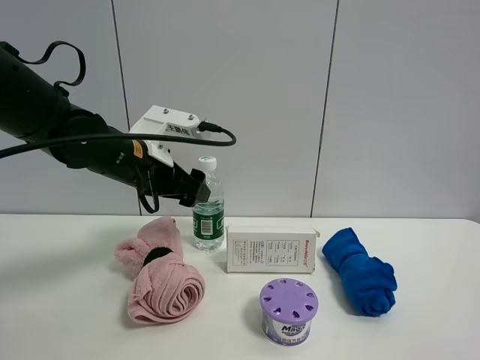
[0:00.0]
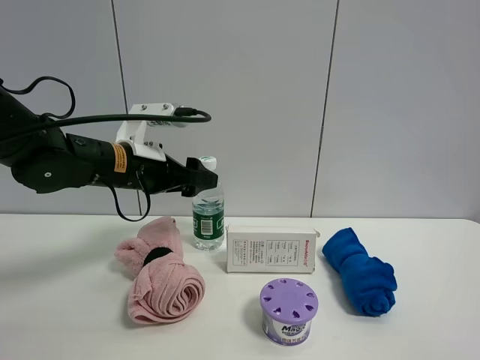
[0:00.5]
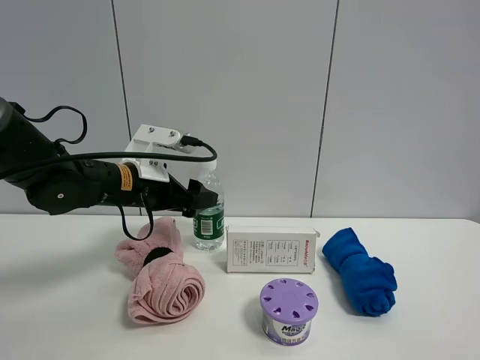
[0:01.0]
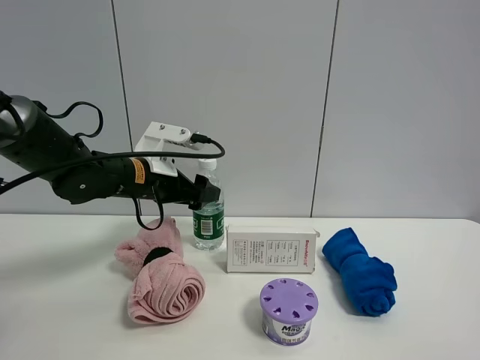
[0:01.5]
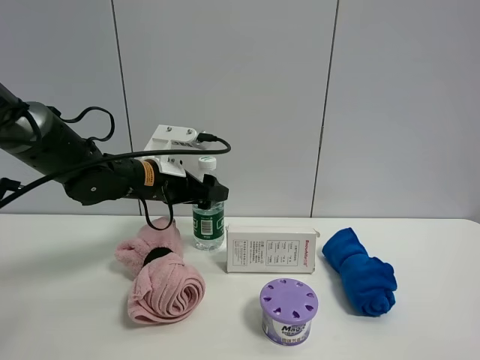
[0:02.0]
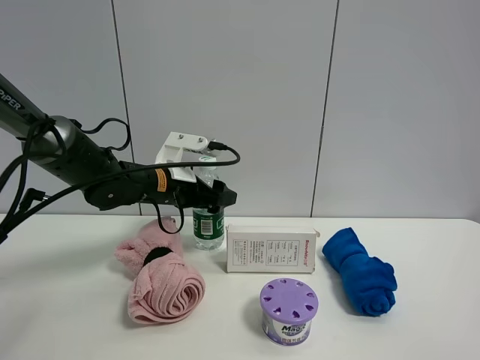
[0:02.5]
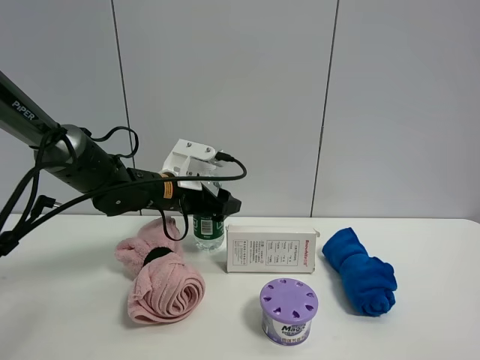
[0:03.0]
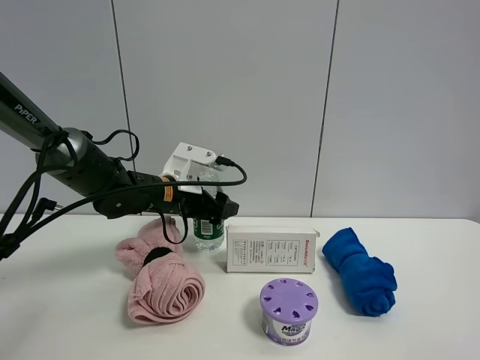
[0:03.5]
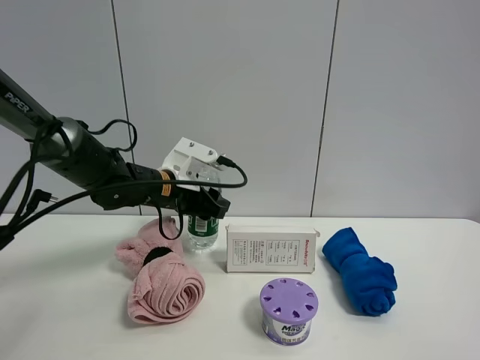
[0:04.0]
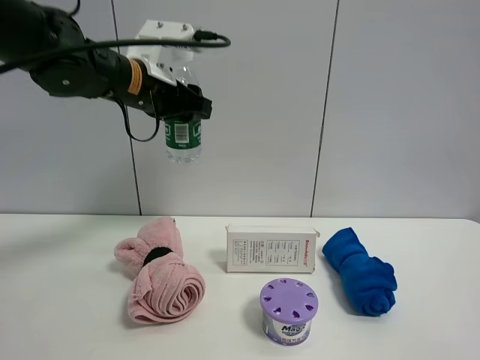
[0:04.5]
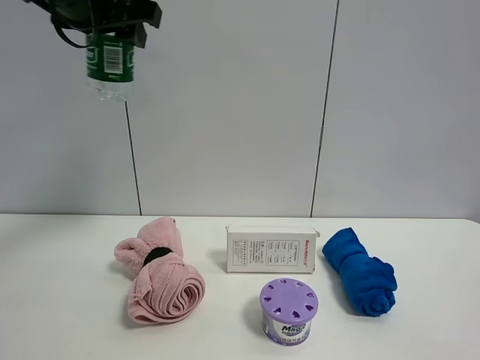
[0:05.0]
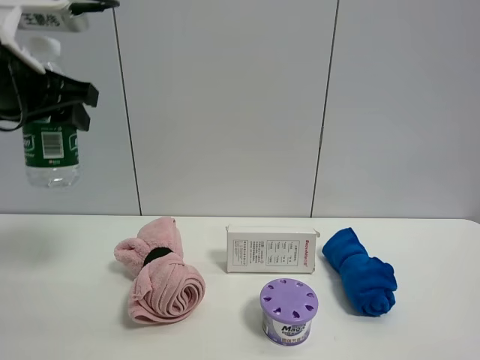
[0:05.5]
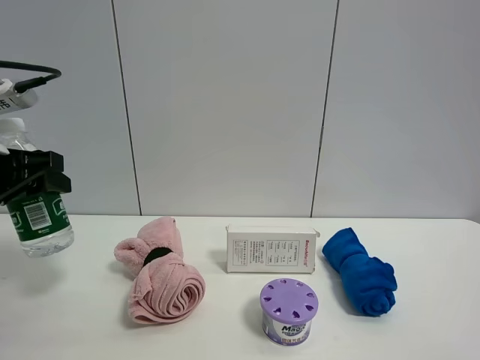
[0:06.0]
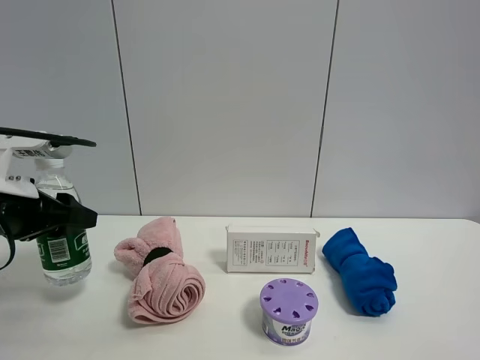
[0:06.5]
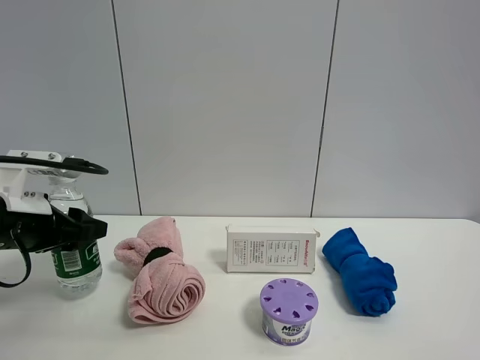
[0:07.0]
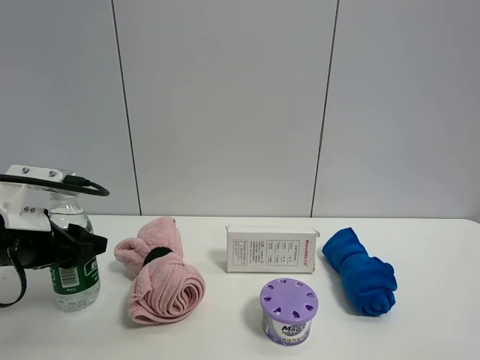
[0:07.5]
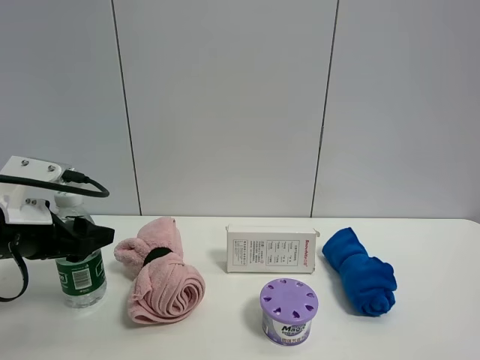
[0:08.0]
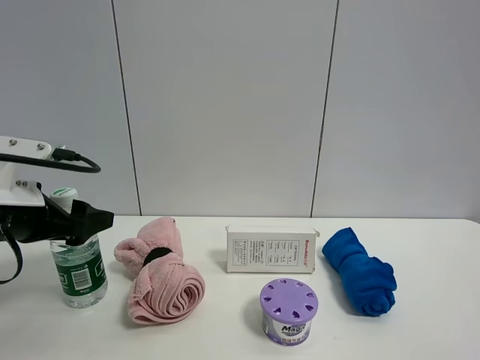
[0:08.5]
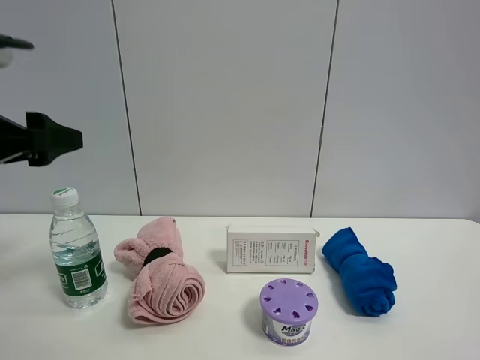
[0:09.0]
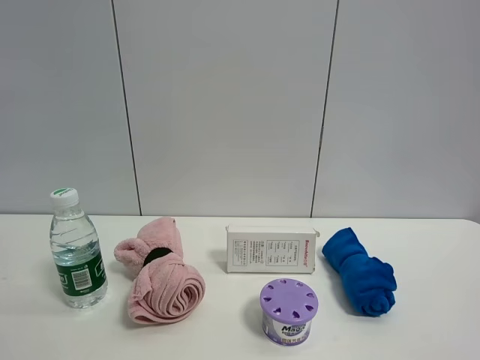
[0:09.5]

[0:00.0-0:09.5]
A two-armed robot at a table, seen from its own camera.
Task of the whole recording: the gripper move the object.
Step, 0:00.0 to 0:03.5: Grasp the YiBao mineral water with the left gripper.
Step, 0:04.0 to 0:08.5: Place the YiBao mineral water on the table with the left gripper.
0:00.0 to 0:02.0: The left gripper changes place by roughly 5 cm.
0:02.0 to 0:04.0: The left gripper closes its fingers.
0:04.0 to 0:05.5: The left gripper moves upward, backward and to the left, about 25 cm.
0:05.5 to 0:07.5: The left gripper shifts approximately 15 cm downward.
0:07.5 to 0:09.5: The left gripper heads upward and backward, covering approximately 25 cm, and opens up.

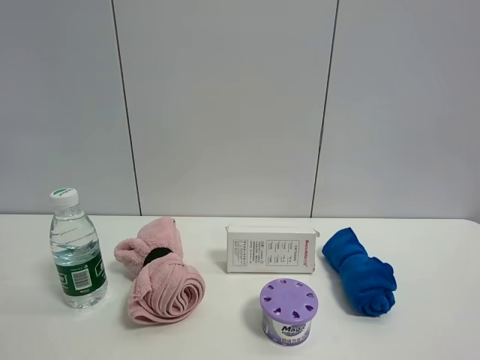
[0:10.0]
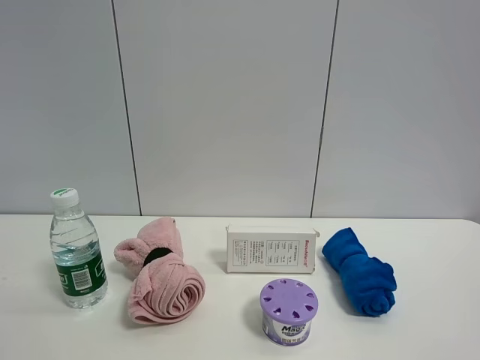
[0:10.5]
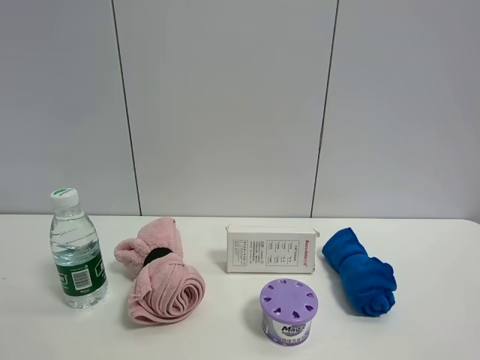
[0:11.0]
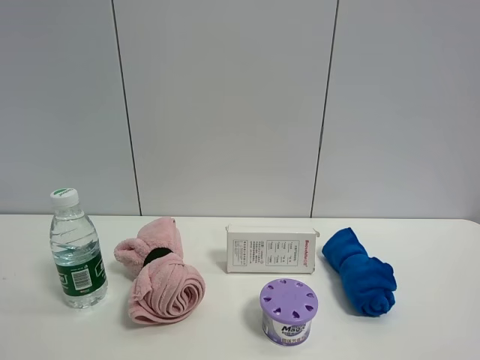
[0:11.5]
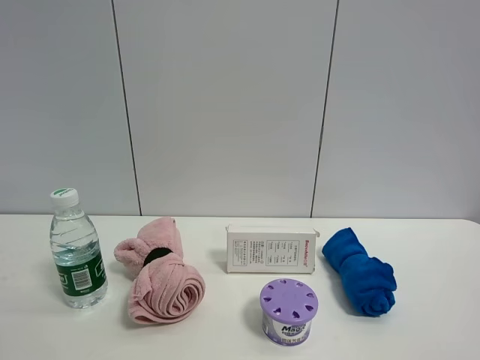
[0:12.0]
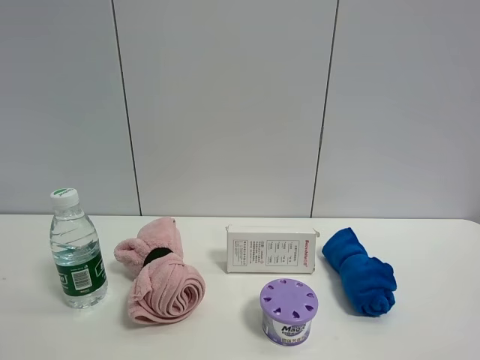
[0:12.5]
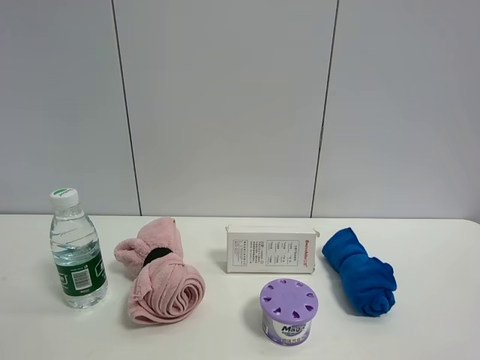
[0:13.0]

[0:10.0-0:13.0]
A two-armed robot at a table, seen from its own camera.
Task of the whole recording: the gripper move the object.
0:11.5 to 0:13.0: Neither gripper changes place.

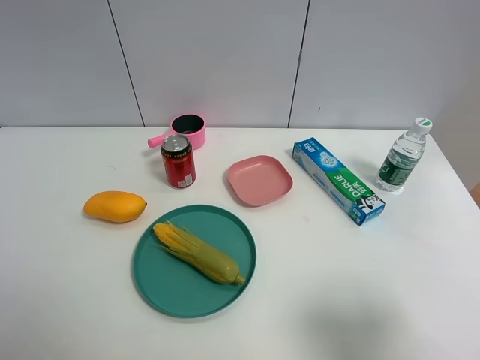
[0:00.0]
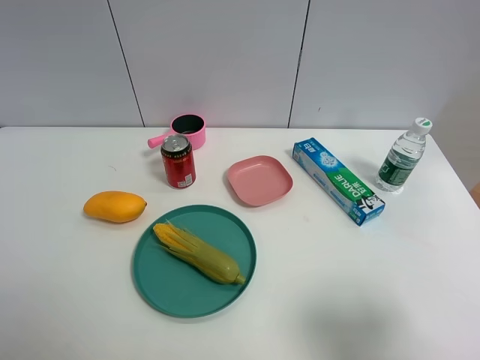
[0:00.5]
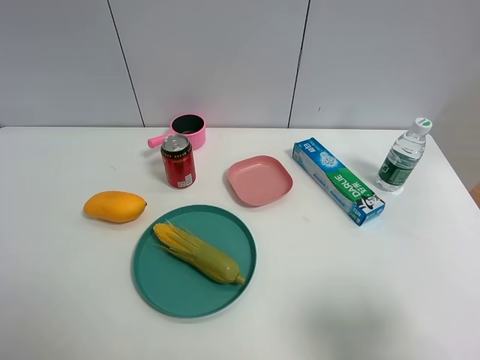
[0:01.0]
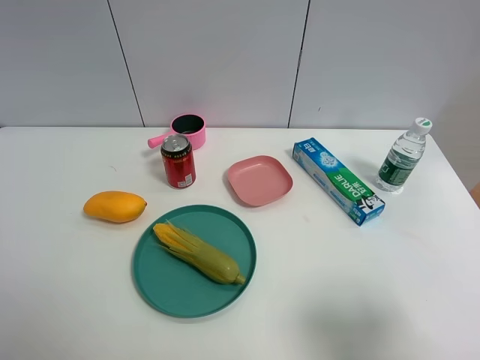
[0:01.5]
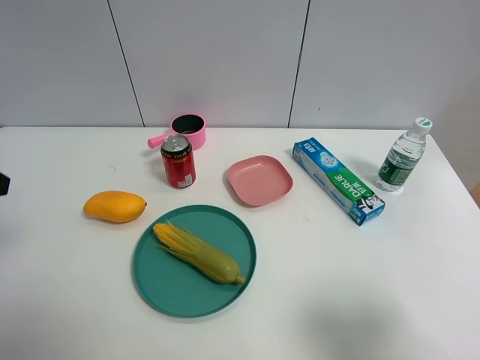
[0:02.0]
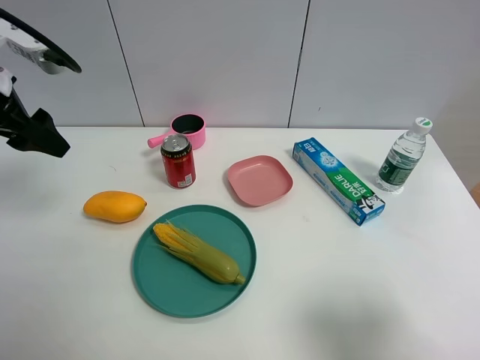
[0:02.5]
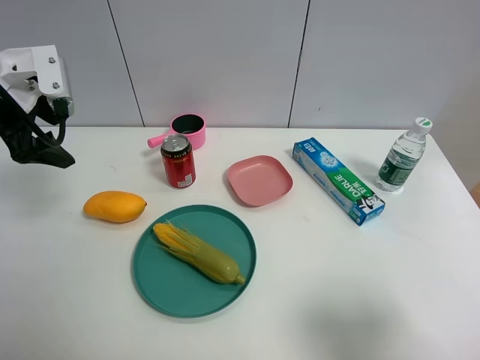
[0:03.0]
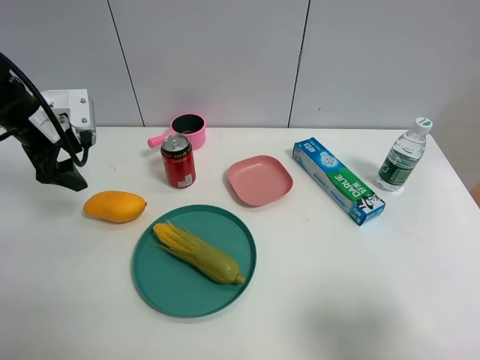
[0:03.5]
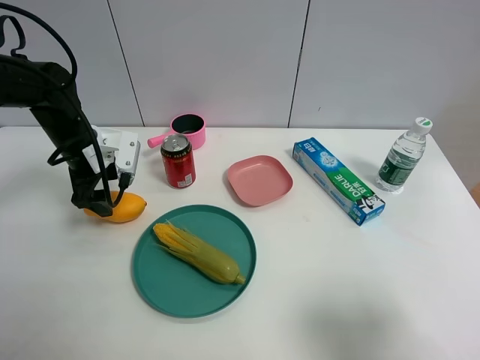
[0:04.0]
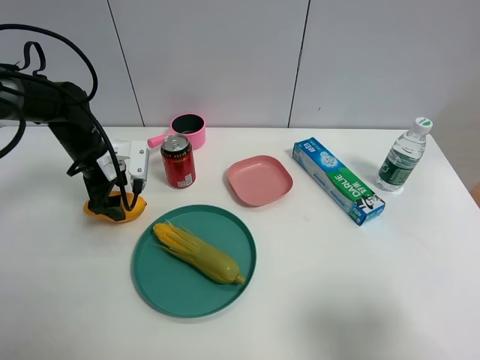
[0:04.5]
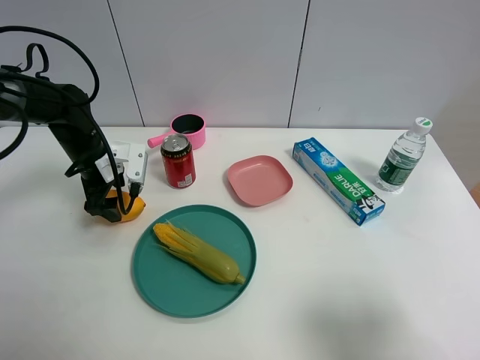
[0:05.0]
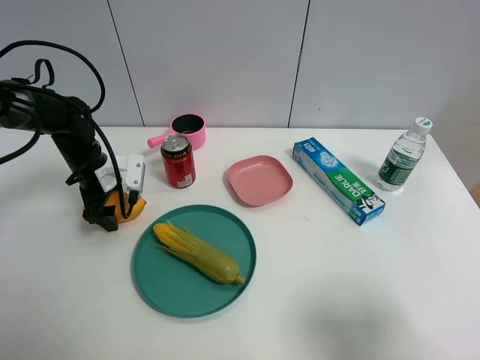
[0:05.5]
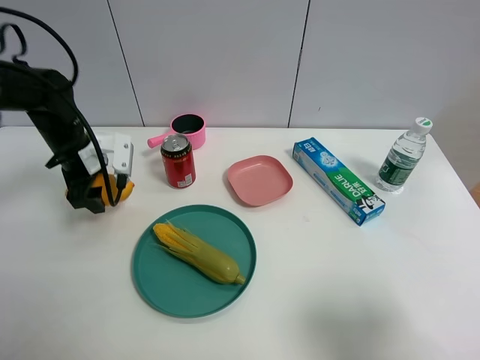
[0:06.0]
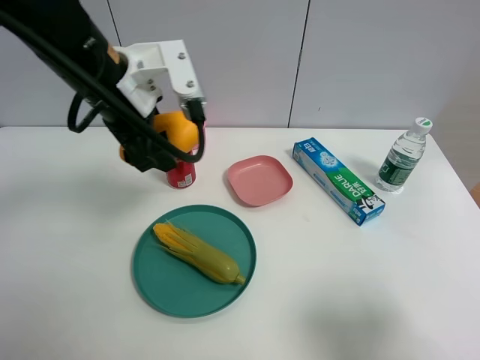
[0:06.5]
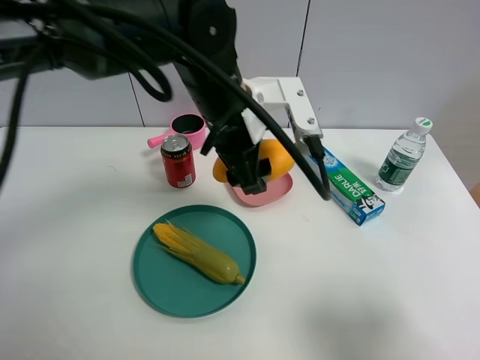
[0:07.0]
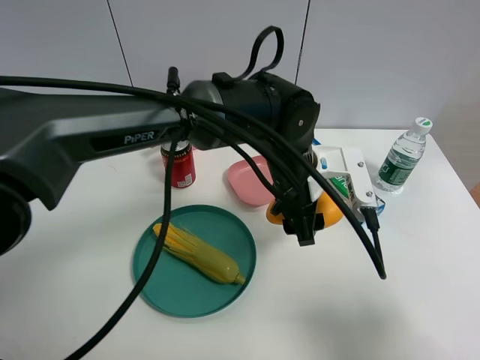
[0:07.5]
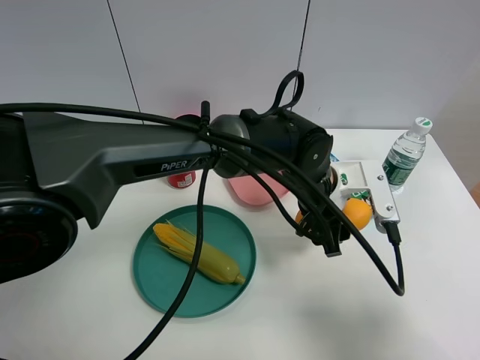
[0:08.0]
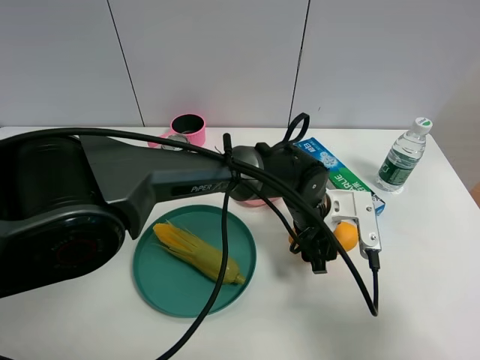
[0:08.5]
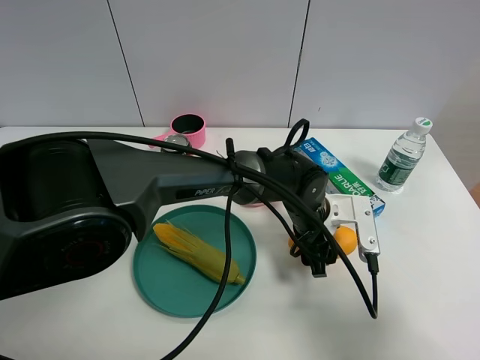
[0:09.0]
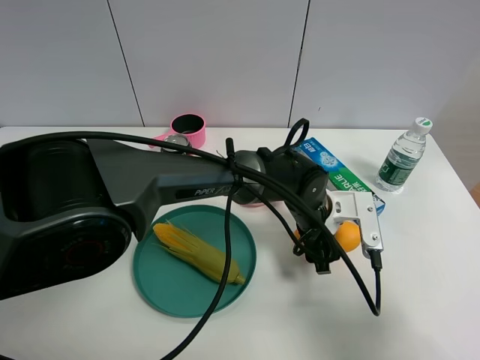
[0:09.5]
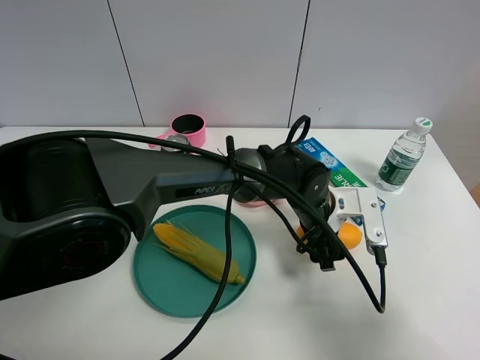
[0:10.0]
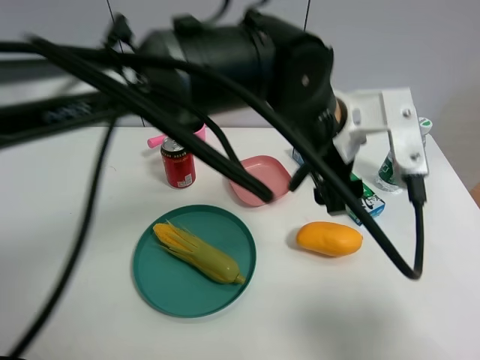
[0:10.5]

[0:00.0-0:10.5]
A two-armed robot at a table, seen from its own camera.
Task of the whole recording: the gripper move the object.
Step, 0:00.0 to 0:05.5: Grasp the mango with the left gripper.
Step, 0:06.0 to 0:09.5: Place the mango on the table with the left gripper.
0:02.0 to 0:04.0: The left gripper goes roughly 25 cm forward and downward.
0:04.0 to 0:06.5: The left gripper heads upward, to the right and backward, covering some 20 cm, and closes.
0:06.5 to 0:08.5: The left gripper goes about 30 cm to the right and downward.
0:08.5 to 0:10.5: The left gripper heads upward, covering about 20 cm, and opens.

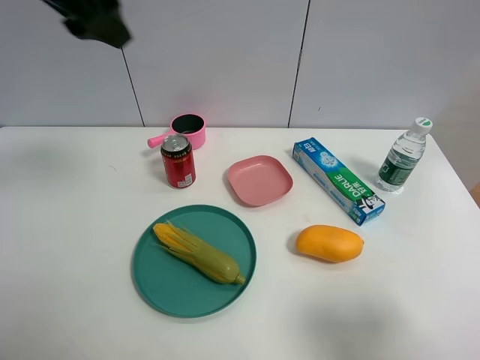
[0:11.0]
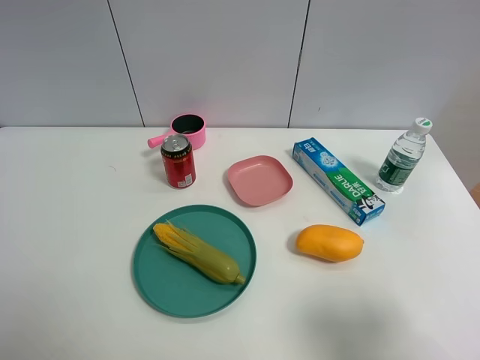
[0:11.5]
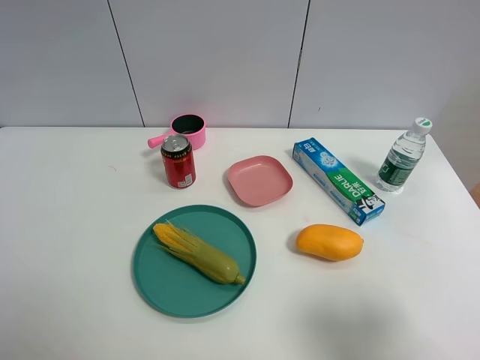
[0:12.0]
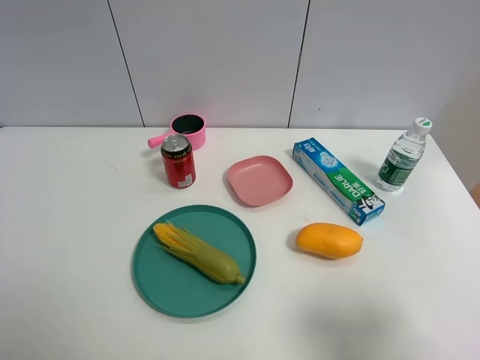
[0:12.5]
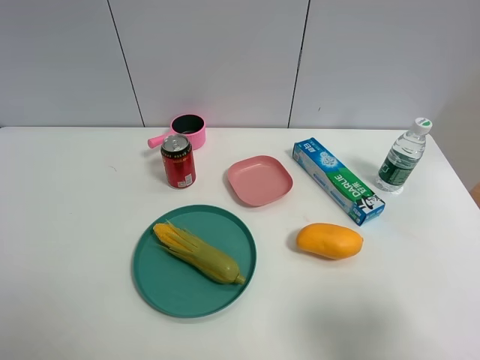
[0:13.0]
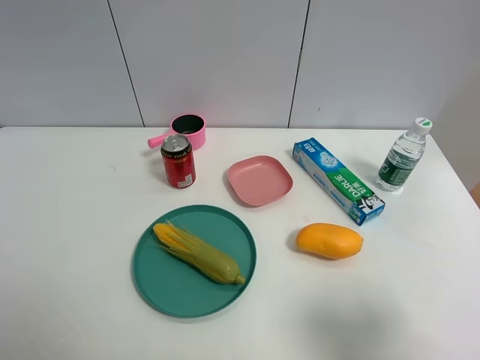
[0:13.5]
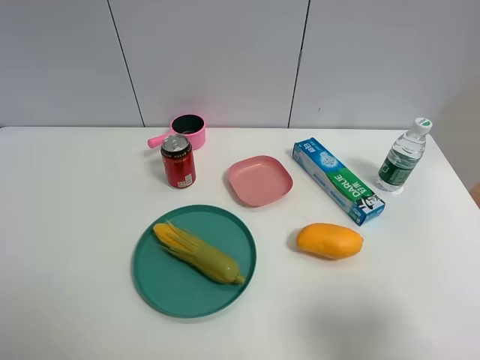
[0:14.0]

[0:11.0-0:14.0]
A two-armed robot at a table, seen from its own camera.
Task of the whole recording: the gripper move the object.
0:11.0 to 0:12.5: The left gripper travels backward and downward by about 35 cm.
